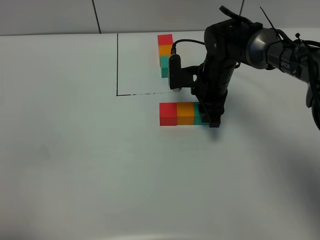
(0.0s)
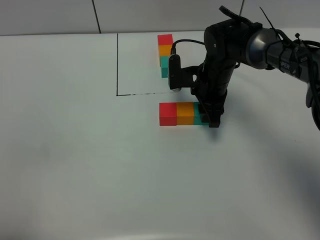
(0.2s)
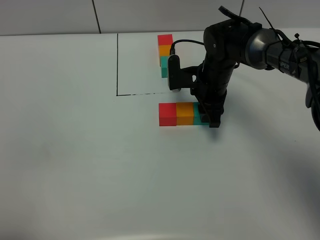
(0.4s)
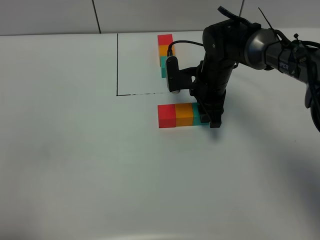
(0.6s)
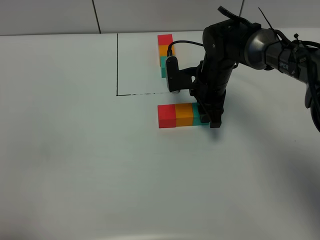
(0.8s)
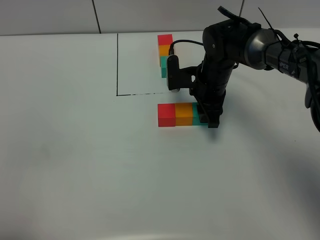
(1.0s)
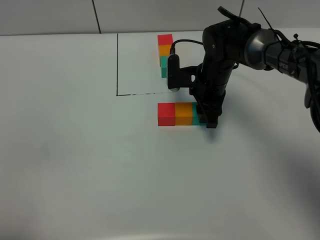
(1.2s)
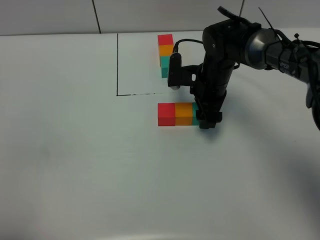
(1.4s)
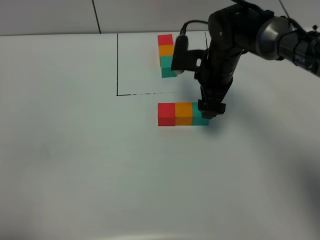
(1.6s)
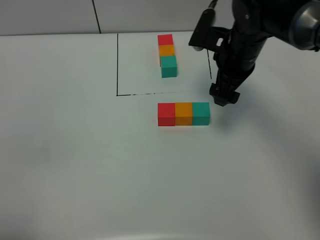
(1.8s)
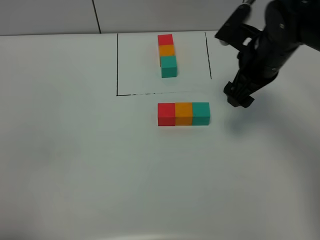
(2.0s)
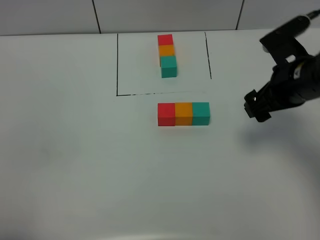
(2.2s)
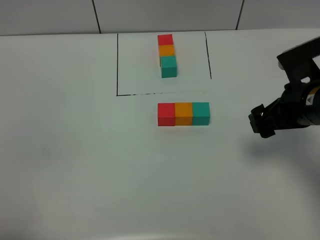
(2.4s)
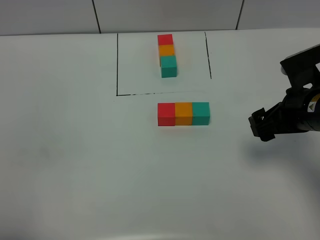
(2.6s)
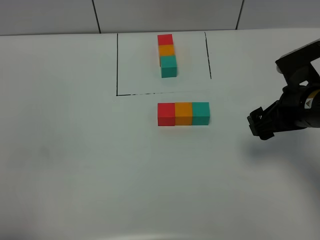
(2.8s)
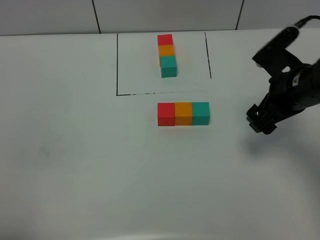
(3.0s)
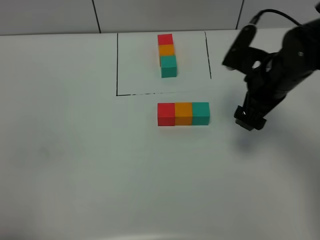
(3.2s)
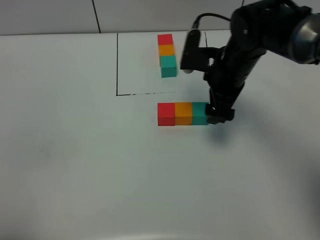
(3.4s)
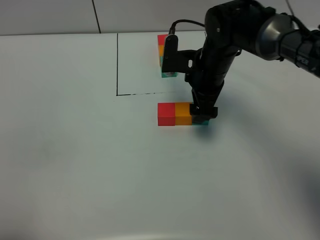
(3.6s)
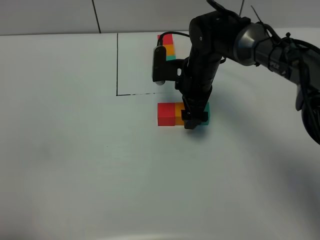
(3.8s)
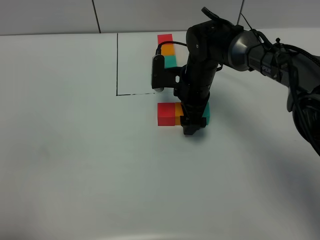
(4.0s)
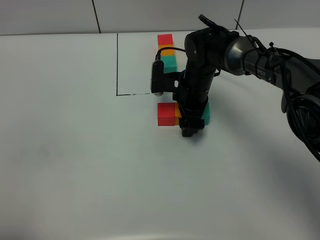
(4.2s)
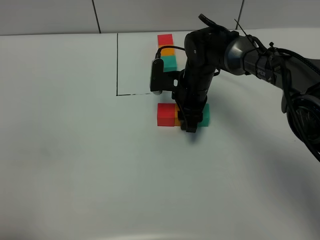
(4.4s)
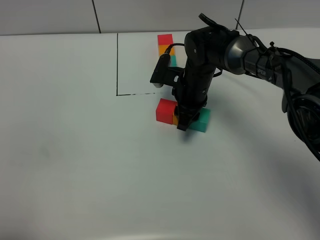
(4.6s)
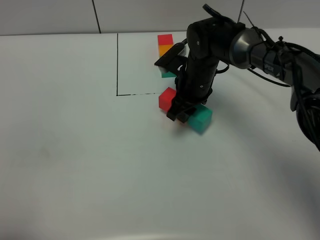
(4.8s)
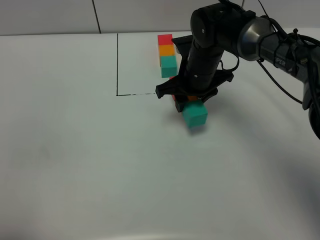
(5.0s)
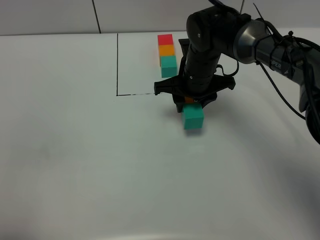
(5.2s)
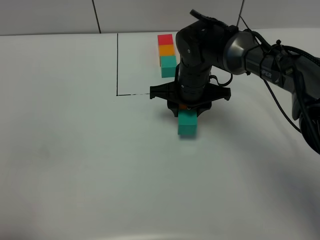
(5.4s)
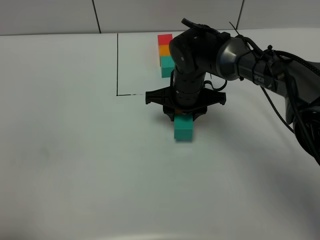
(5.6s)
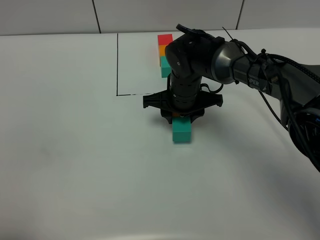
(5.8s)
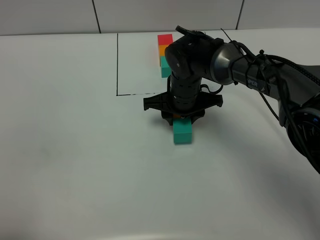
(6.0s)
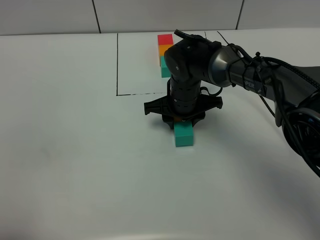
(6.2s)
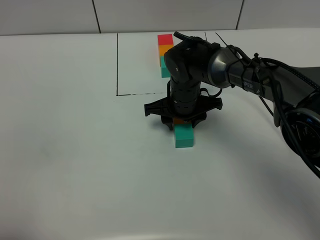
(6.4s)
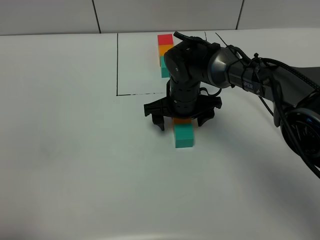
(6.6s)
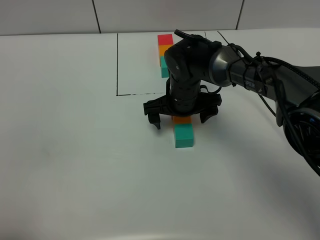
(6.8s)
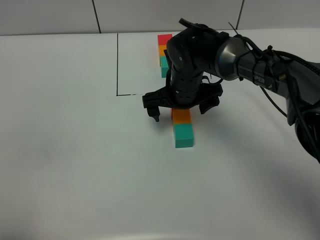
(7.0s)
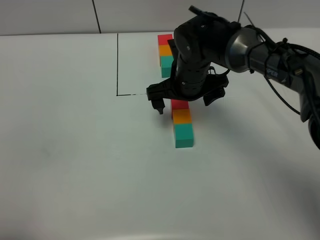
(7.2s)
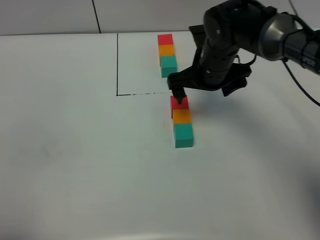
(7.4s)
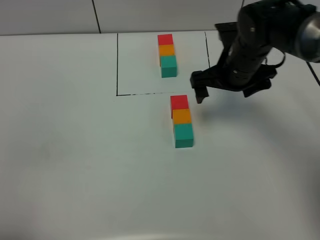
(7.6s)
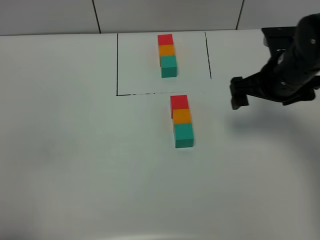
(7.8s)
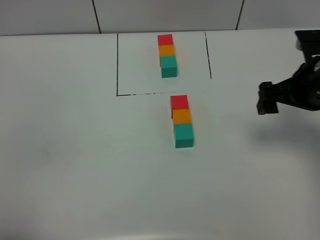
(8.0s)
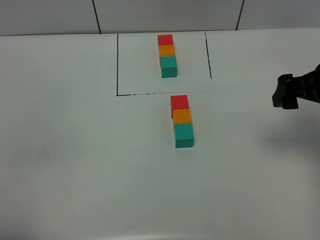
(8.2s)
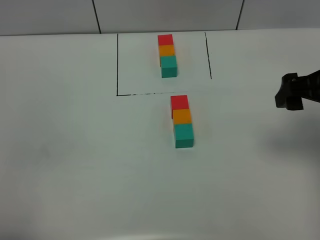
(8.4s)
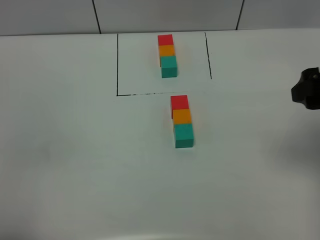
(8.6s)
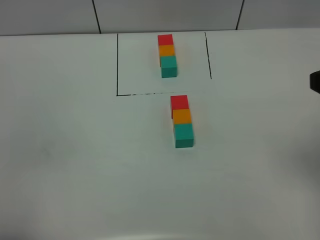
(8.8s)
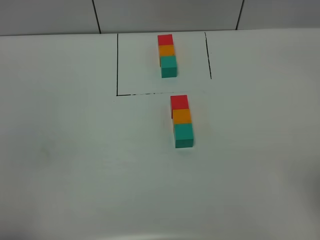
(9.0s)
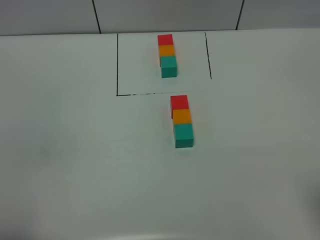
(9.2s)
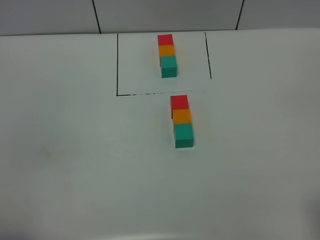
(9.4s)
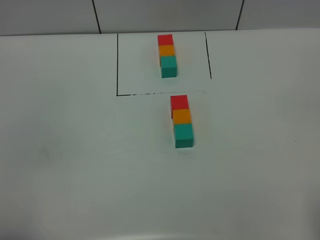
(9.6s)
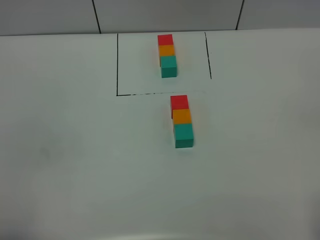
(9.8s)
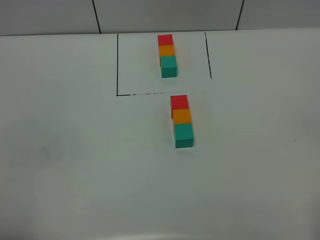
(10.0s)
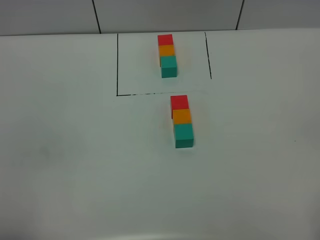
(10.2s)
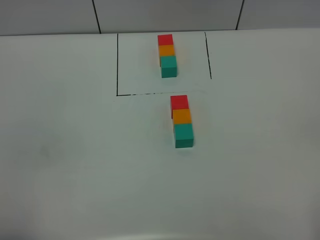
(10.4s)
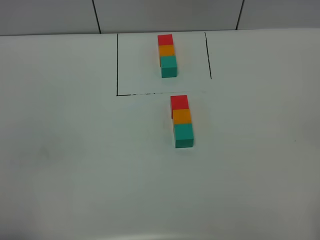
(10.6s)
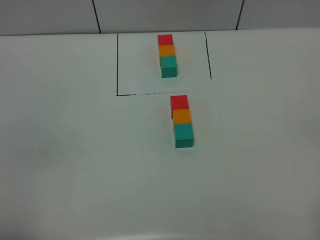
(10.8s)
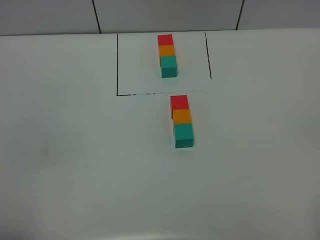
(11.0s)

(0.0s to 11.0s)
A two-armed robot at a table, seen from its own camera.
Task of the whole recording: According to the building block template in front, assemble the scattered blocks together.
Step, 1.4s - 6.6s: move the build block to the center of the table.
0.0s - 1.6s: The right gripper opens.
1.6s - 3.2s: The right gripper moves backward and to the right, roughly 10 cm.
3.2s - 4.8s: The right gripper goes some 15 cm to the left, forward and downward, and closes its fingers.
6.2s - 7.8s: The right gripper is displaced to the right and upward by about 20 cm, and opens.
7.8s - 9.4s: The right gripper travels backward by some 30 cm.

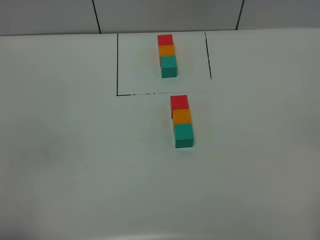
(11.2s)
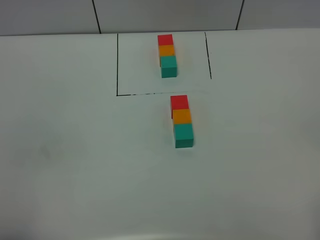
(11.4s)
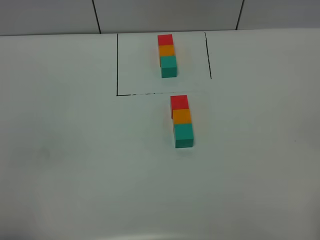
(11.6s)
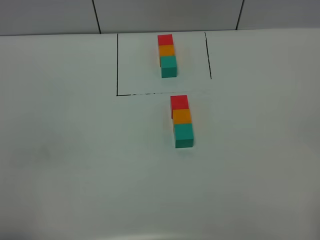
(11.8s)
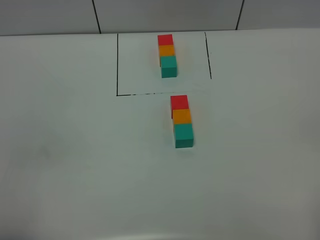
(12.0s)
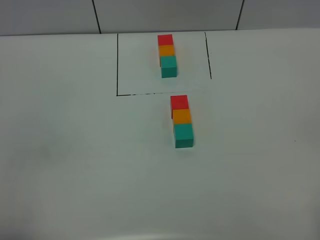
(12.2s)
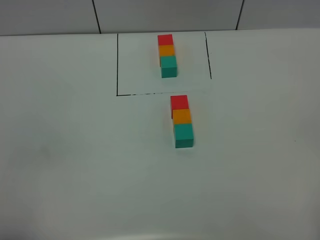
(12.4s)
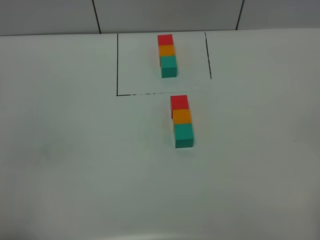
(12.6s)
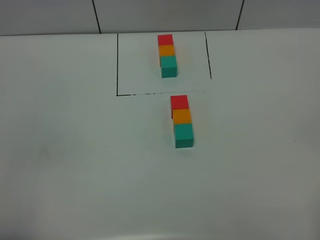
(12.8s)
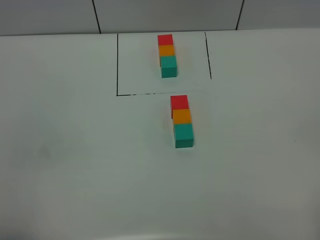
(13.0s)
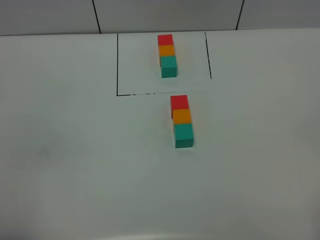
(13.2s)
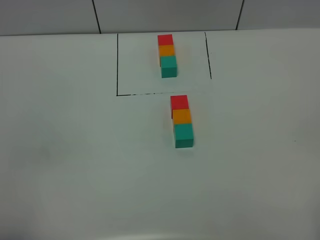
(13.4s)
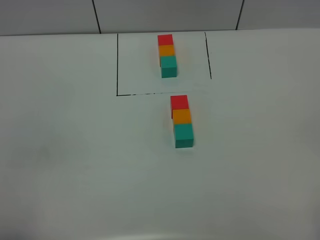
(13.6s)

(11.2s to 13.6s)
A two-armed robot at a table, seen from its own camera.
Task of the whole recording: According to the building block template in front, assemble the scattered blocks together.
11.2s - 13.6s: Both grippers stay put.

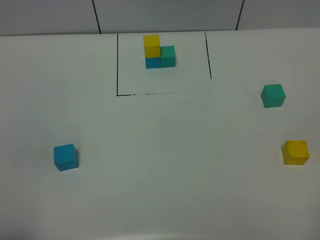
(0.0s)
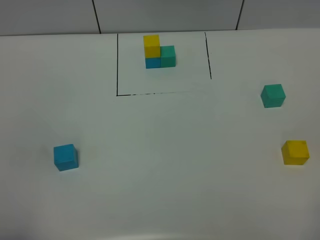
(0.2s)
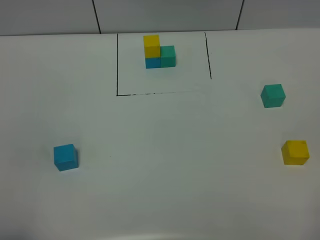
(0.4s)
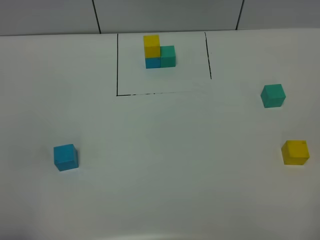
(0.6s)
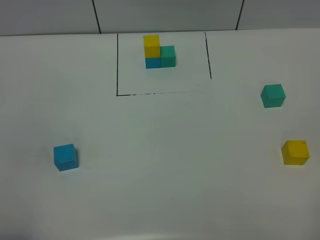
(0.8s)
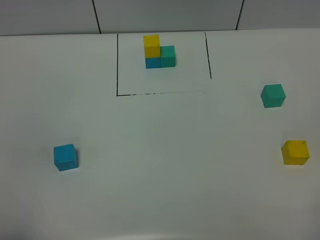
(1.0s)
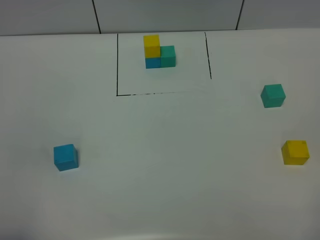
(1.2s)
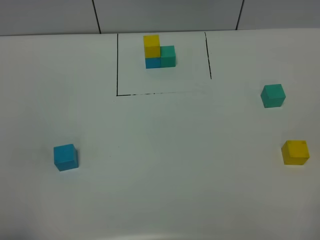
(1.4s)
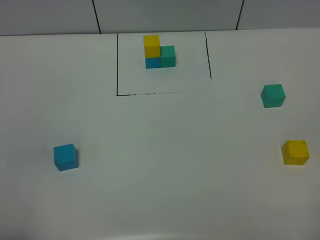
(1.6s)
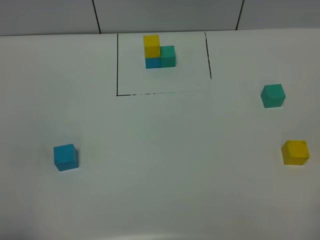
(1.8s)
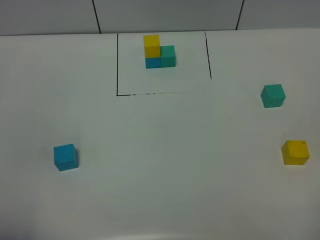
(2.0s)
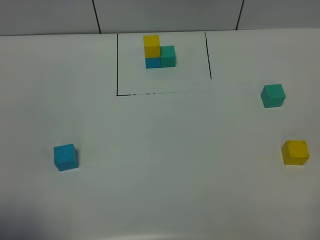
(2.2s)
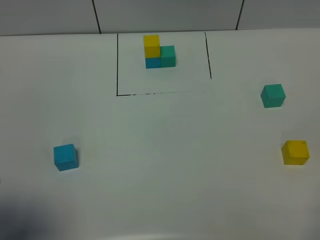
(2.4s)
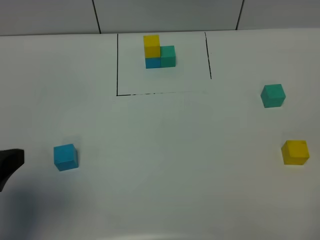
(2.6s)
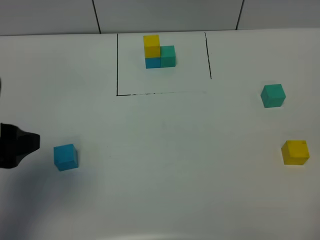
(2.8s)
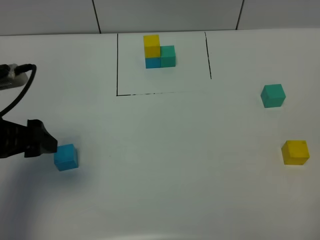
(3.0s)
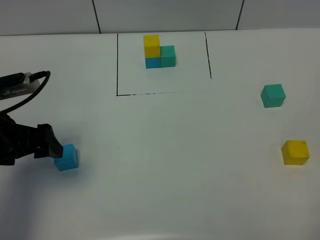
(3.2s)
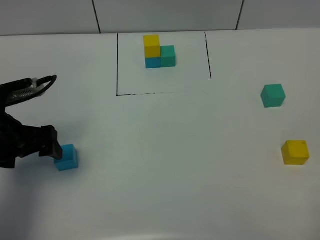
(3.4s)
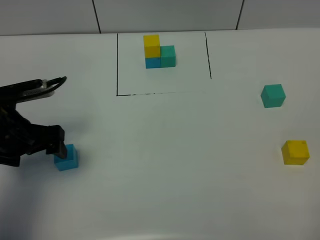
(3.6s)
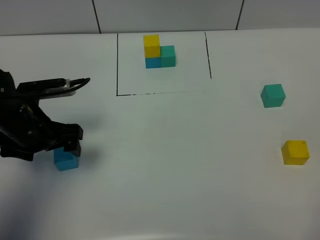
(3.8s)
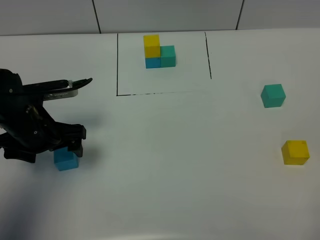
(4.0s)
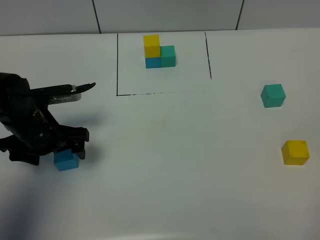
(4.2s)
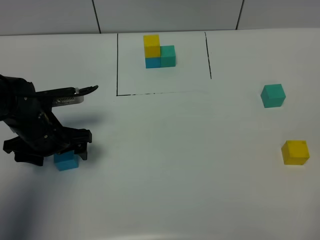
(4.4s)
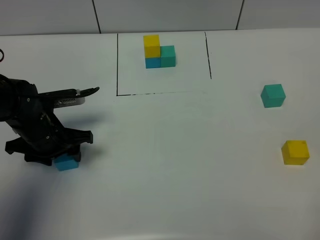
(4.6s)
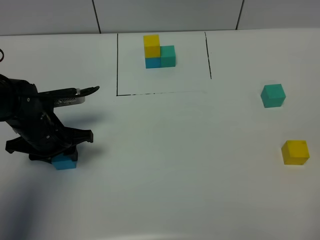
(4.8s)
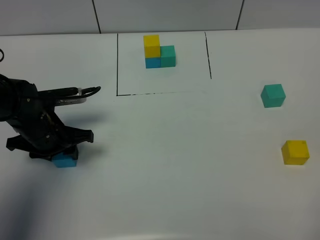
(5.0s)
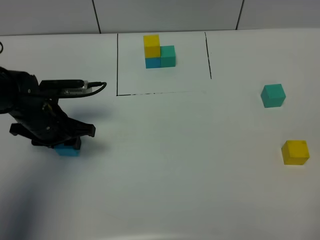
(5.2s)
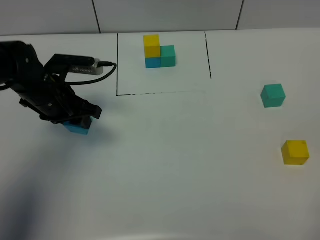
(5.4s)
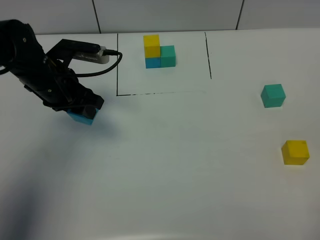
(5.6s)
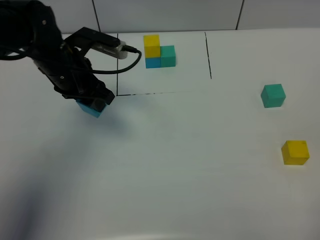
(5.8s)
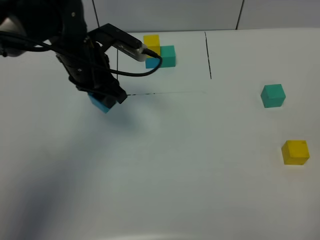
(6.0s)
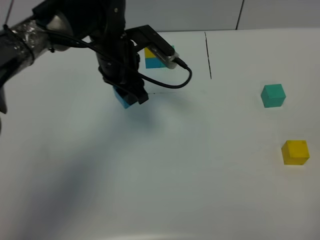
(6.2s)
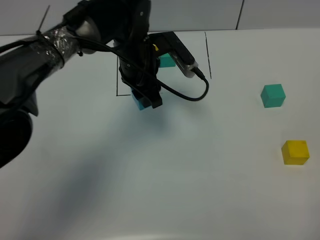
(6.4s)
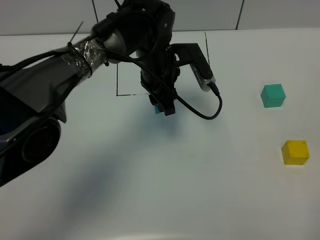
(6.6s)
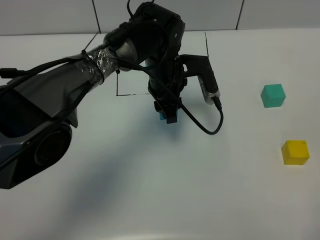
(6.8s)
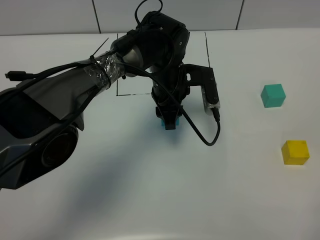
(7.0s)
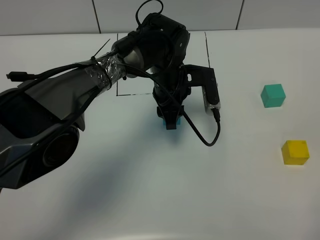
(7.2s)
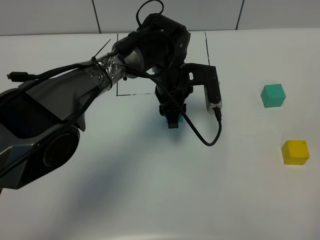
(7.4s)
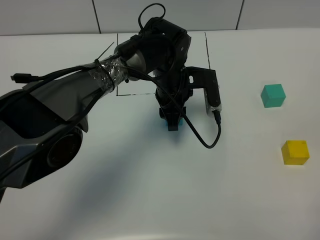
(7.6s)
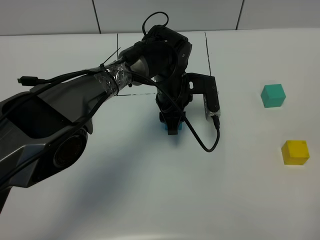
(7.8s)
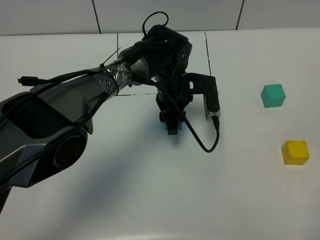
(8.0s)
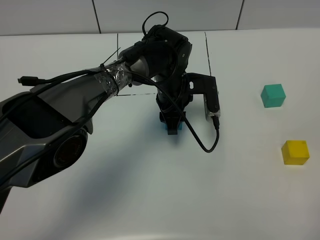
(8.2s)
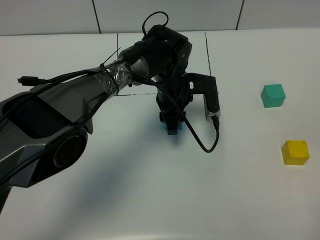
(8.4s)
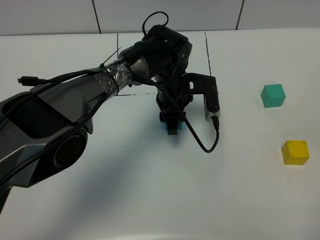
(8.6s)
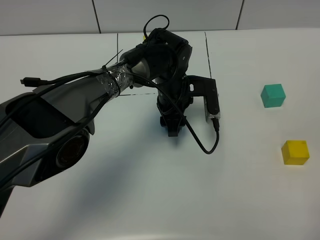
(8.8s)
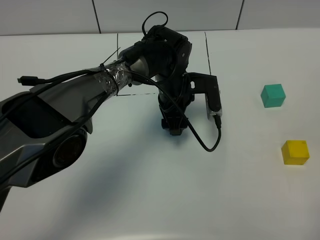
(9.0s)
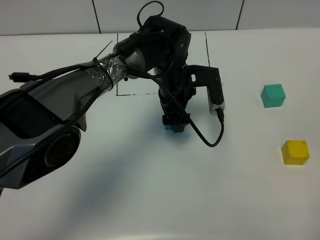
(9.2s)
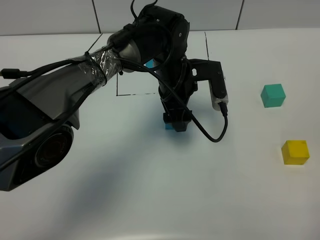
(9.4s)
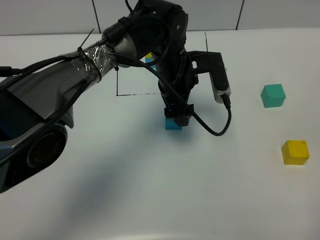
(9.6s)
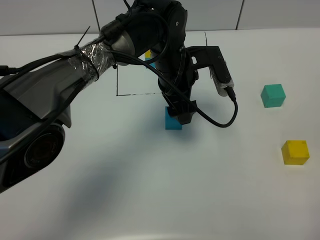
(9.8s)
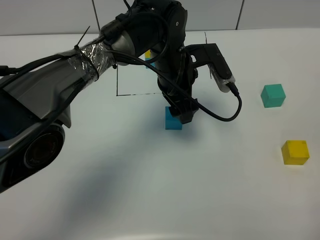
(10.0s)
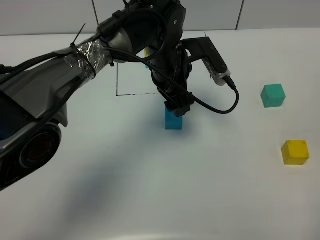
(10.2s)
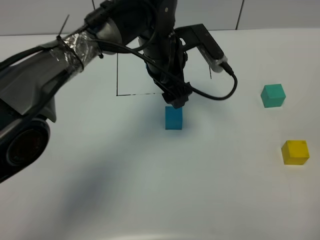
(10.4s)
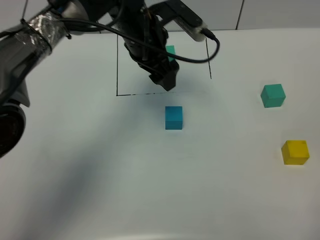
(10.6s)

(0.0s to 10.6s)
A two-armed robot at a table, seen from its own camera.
Task of the whole recording: According to the building block template in front, assemble the scattered blocks together.
Step, 0.0s - 8.8s: Put the blue build block in the center of the table.
0.0s - 1.6s: Both grippers stay about where they are.
1.6s - 3.0s: The left gripper is displaced forward by approximately 20 cm, and opens up.
3.0s - 4.6s: The left gripper goes roughly 15 cm downward and forward, and closes its fingers.
4.6s - 6.0s: The left gripper shifts some 15 cm to the right, upward and forward.
6.0s - 7.6s: The left gripper is displaced to the right and downward by approximately 15 cm.
7.6s - 9.0s: The left gripper opens.
9.0s - 10.6s: The left gripper travels upward and to the left by some 15 cm.
